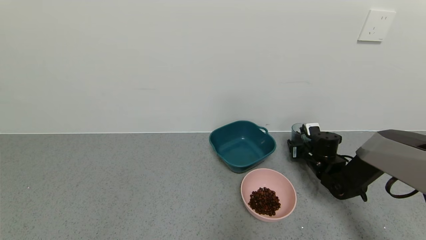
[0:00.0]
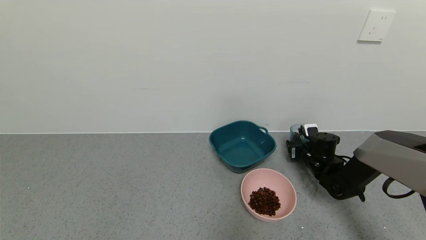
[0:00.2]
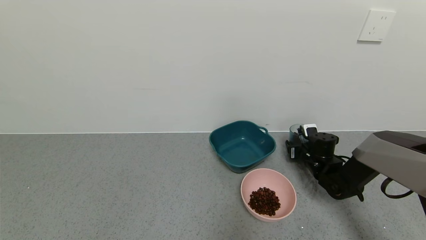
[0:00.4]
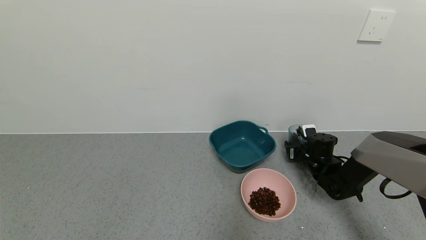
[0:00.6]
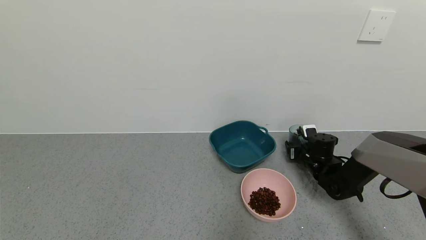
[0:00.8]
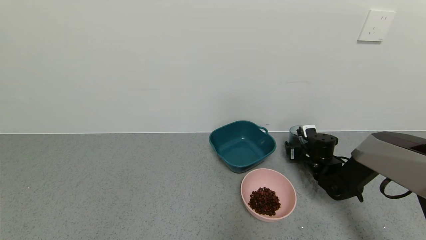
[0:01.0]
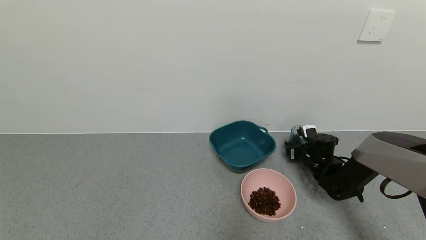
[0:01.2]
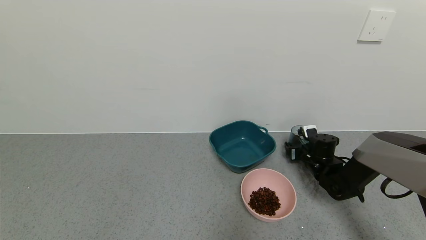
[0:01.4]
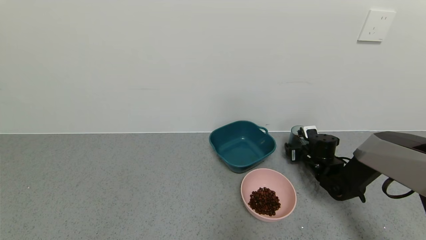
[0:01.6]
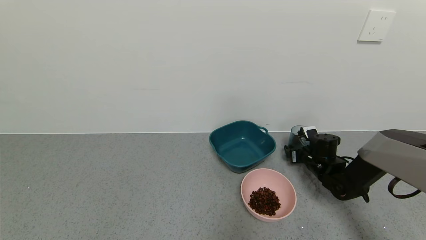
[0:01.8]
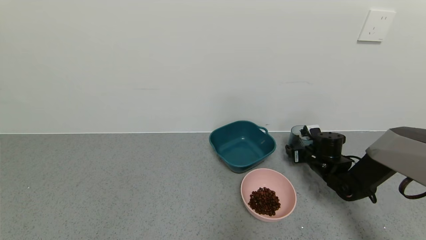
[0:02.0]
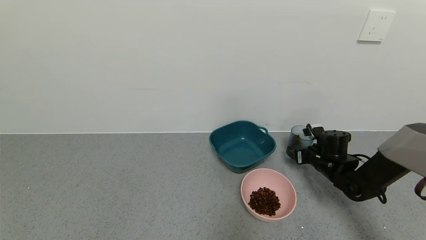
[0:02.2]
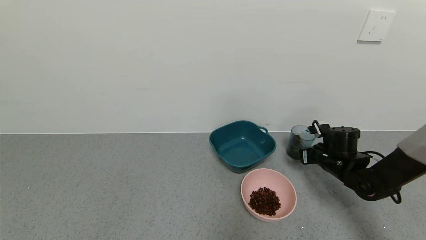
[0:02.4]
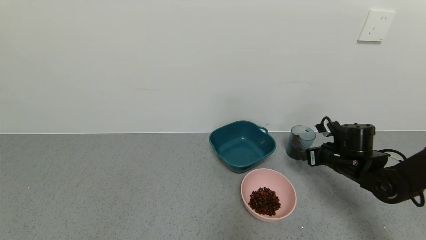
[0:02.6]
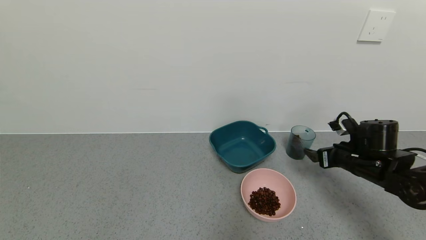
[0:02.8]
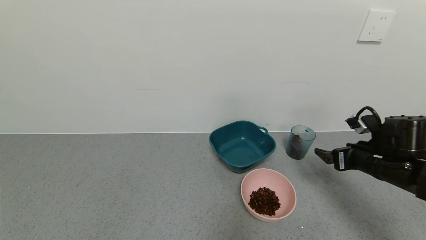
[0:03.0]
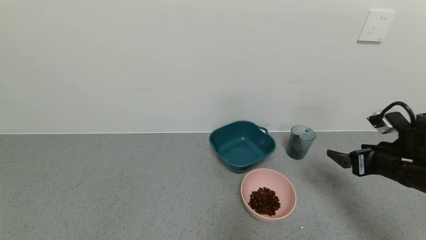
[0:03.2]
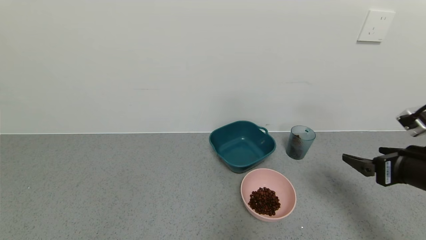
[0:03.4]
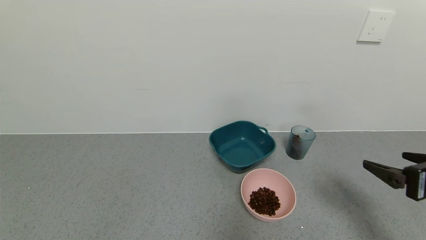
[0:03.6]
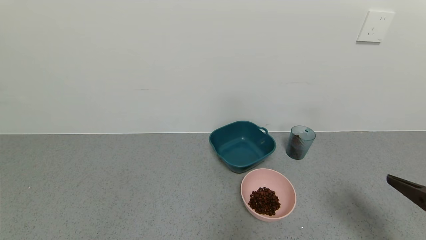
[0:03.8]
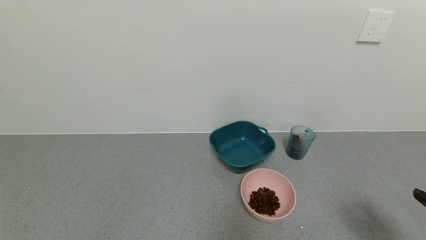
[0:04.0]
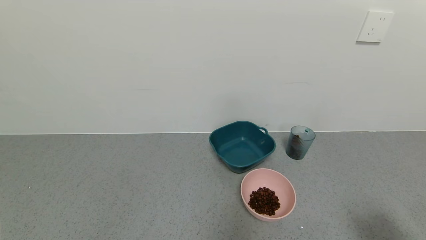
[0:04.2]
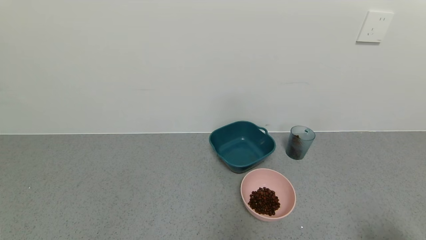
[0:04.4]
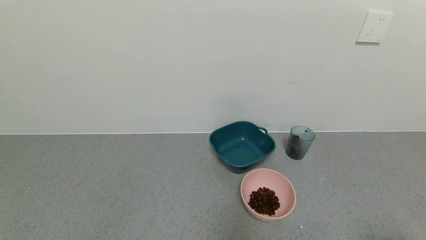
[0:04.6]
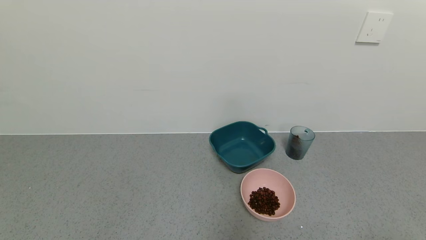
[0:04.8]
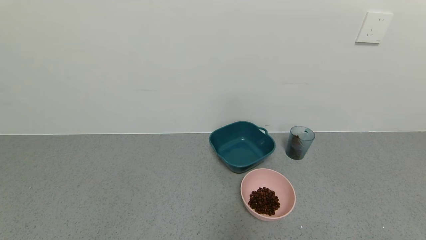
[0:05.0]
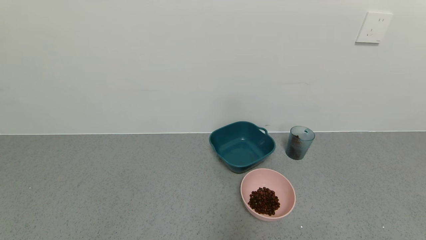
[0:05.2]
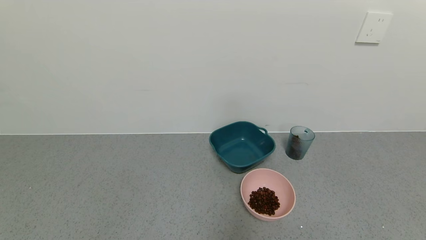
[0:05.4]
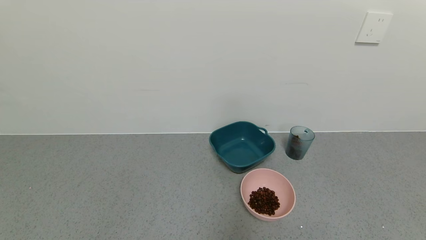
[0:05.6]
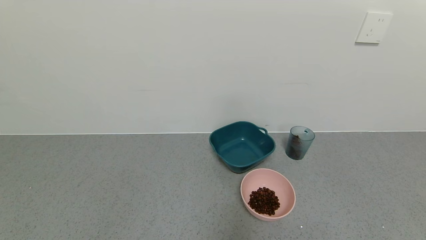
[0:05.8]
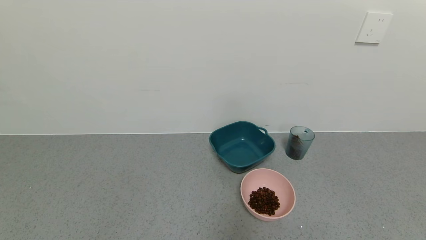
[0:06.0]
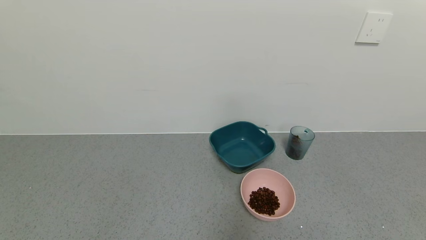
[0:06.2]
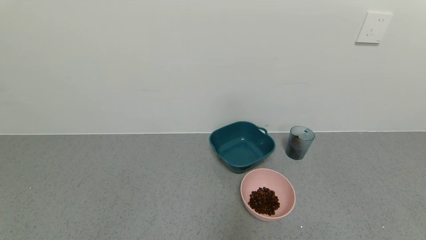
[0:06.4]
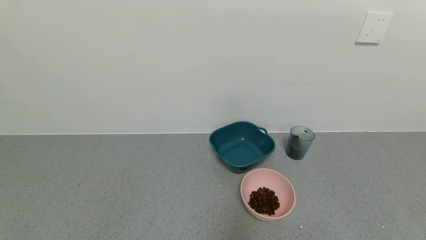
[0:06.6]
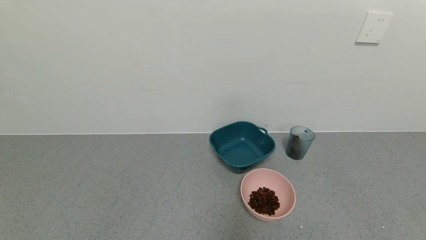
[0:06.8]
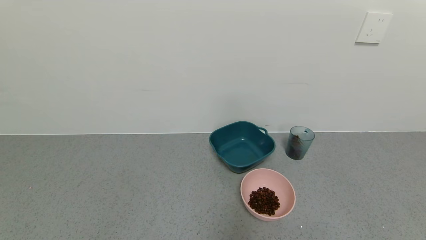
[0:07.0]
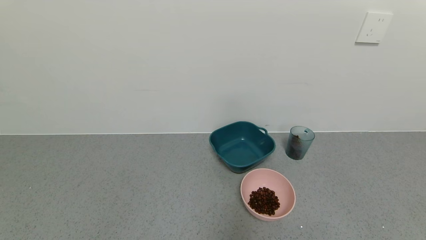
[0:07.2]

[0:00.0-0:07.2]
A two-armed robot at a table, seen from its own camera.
Task of the whole recording: use a gripper to pick up the cup and pour the solid into a bowl or tray.
Step, 0:00.0 to 0:02.4: Place the glass cup with the right gripper.
0:00.0 to 0:01.4: The right gripper opens its fingers.
0:01.4 to 0:02.8: The right gripper heads backward and upward, covering about 15 cm.
0:02.8 to 0:04.4: The right gripper heads backward, covering some 30 cm.
